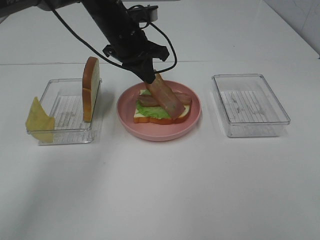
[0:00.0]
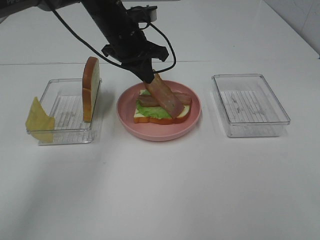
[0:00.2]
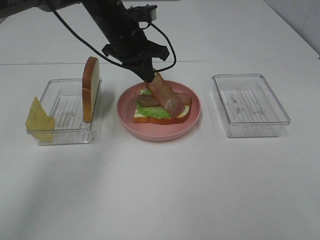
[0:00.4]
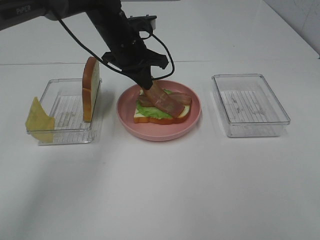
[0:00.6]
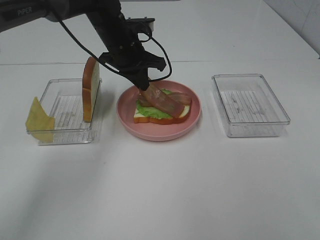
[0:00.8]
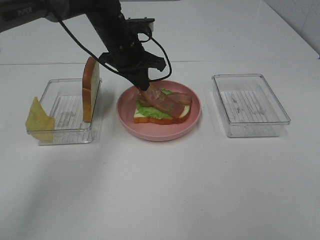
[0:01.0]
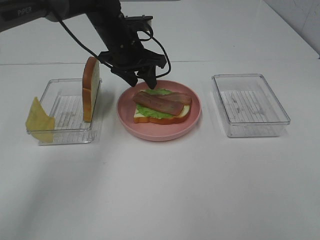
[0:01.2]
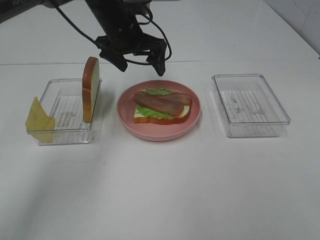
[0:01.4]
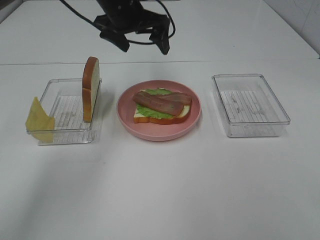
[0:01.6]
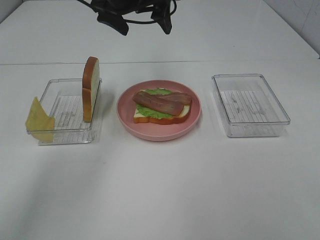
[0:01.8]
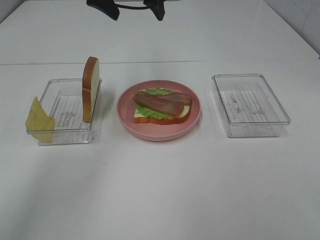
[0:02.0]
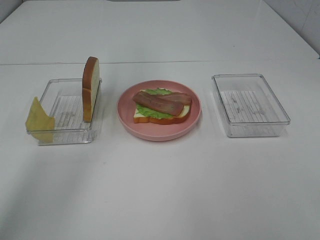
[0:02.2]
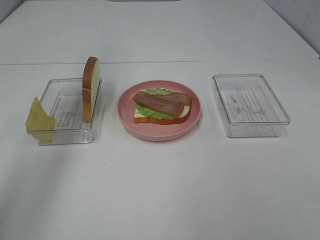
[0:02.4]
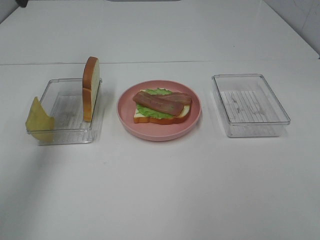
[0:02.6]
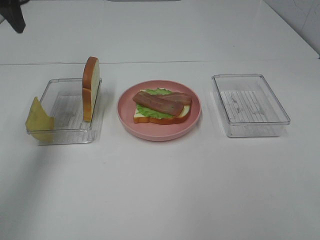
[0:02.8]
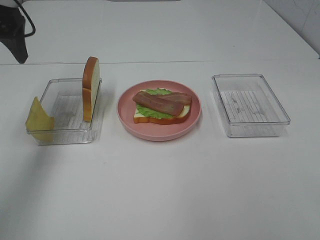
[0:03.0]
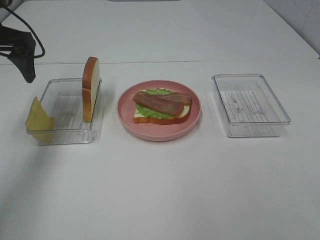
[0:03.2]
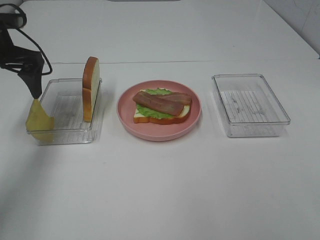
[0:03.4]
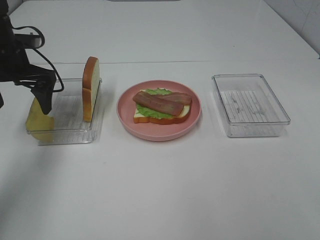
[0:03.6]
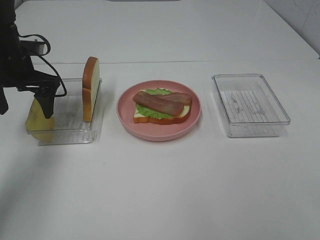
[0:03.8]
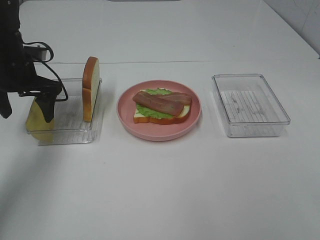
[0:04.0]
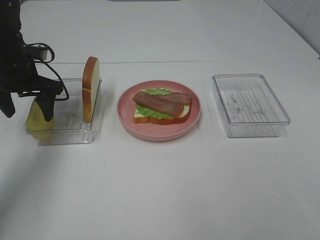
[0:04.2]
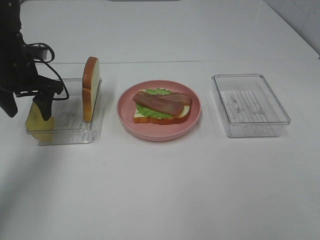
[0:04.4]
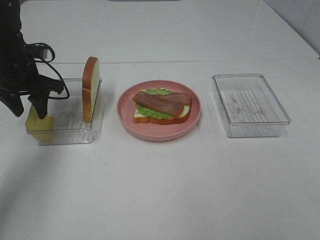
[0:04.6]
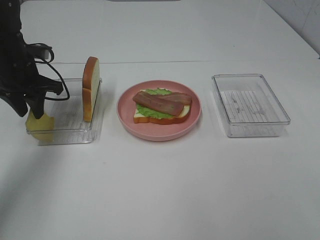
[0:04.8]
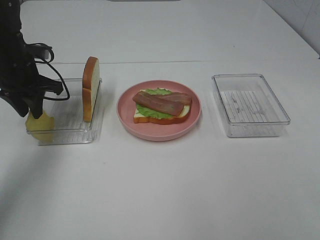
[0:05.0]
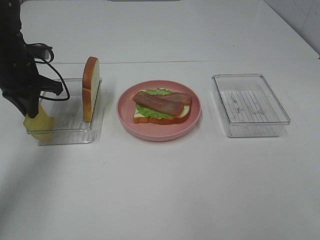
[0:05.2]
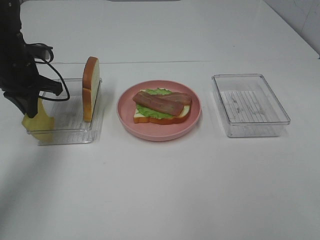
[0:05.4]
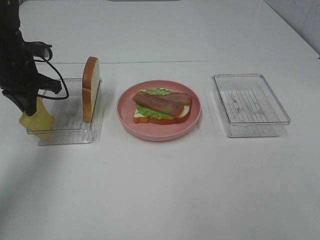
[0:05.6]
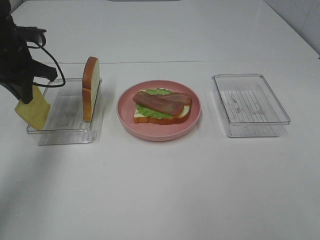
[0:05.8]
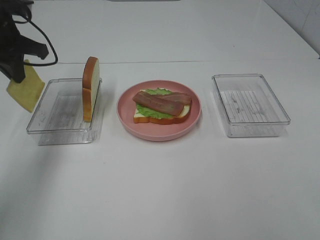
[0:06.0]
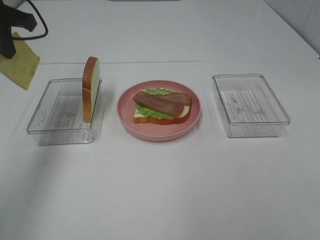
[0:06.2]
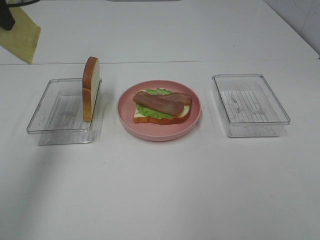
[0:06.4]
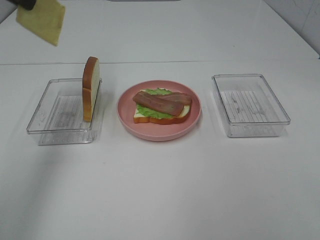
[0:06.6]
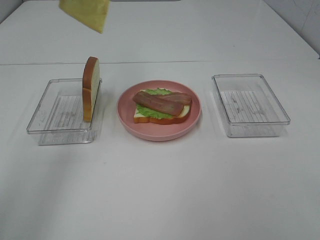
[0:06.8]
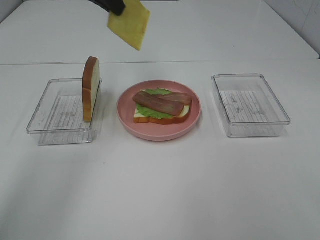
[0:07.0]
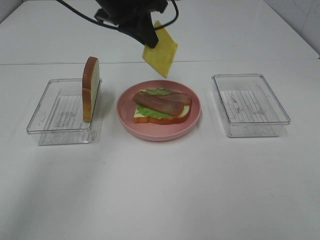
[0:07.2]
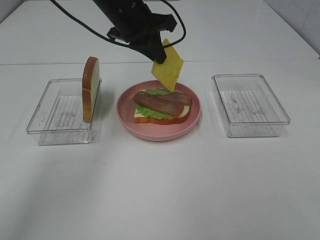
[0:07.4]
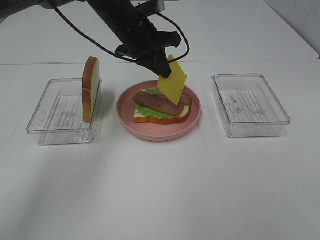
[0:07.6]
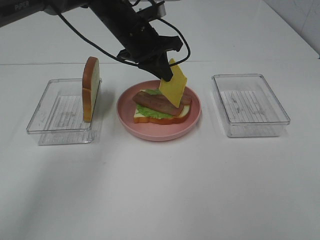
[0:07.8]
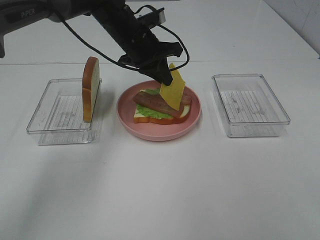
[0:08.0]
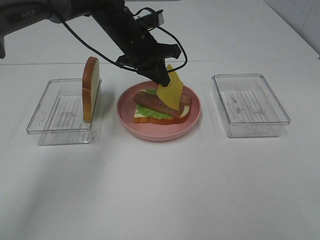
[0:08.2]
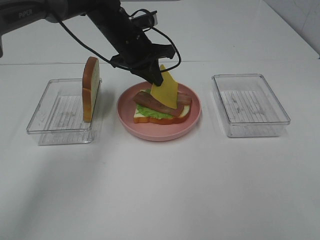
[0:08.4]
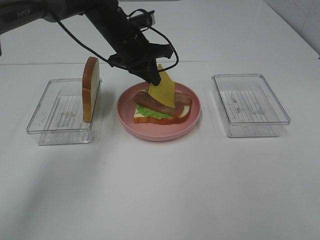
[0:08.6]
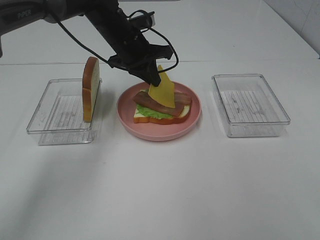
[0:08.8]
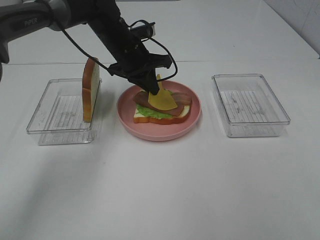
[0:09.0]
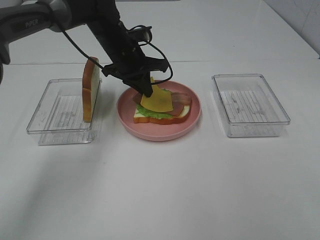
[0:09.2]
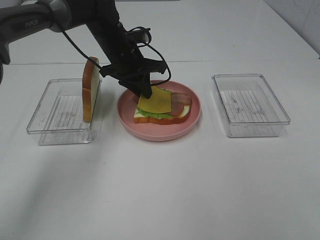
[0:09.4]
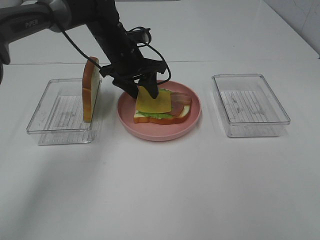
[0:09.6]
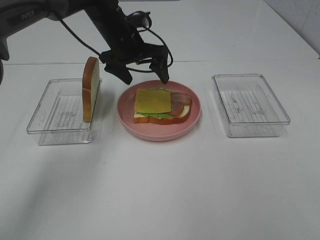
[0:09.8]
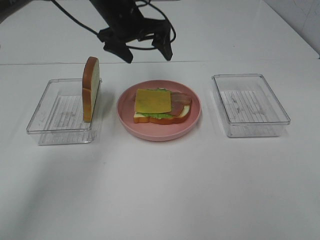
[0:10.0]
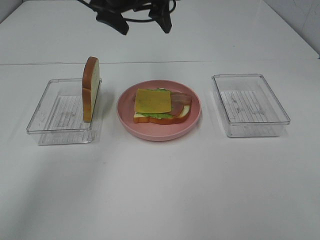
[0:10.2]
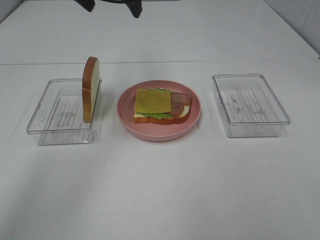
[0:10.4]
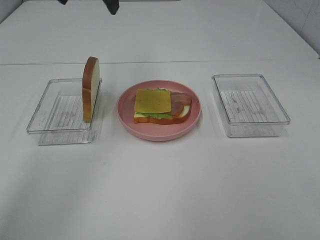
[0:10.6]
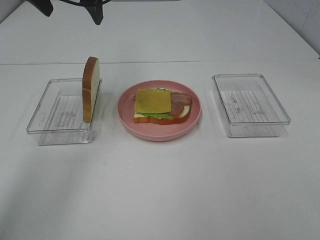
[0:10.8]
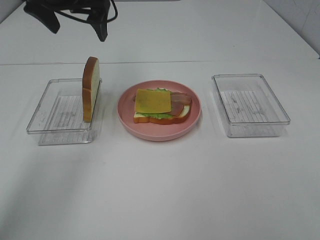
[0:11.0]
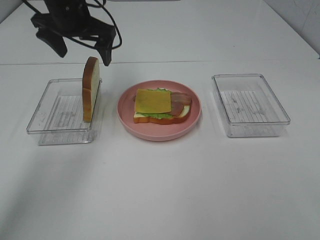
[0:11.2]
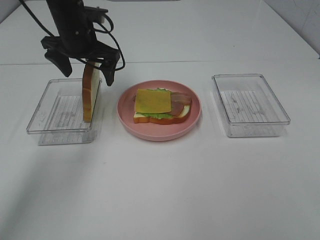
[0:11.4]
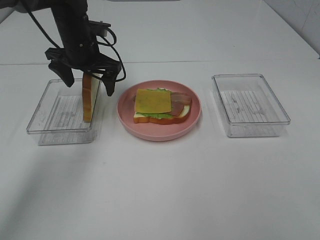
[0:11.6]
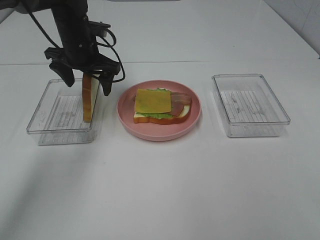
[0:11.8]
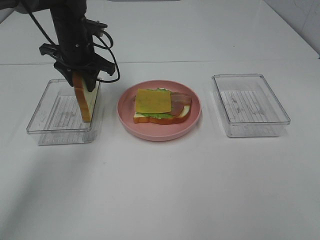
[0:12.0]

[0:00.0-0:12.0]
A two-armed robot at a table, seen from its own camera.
Task of the whole recording: Make sandwiches.
Step, 0:01.4 to 0:05.6: Left hand:grab the cheese slice.
Step, 0:05.8 to 0:09.8: Left hand:place the cheese slice on top of the bacon.
Step, 0:10.0 to 0:12.0: Left hand:grab the bread slice.
0:00.0 to 0:01.6: The left gripper goes approximately 5 cm upward, and opens up.
0:01.6 to 0:03.0: The left gripper shifts approximately 25 cm to the left and backward.
0:03.0 to 0:04.4: The left gripper travels downward by roughly 15 cm.
0:04.4 to 0:06.0: The left gripper travels upward by some 10 cm, and closes its fingers.
0:06.0 to 0:07.6: The left gripper is displaced to the right by roughly 20 cm.
0:07.6 to 0:09.0: The left gripper shifts by roughly 5 cm.
0:09.0 to 0:10.4: The left gripper travels upward by about 20 cm, and opens its fingers.
0:10.4 to 0:12.0: The left gripper goes approximately 15 cm downward, and closes up.

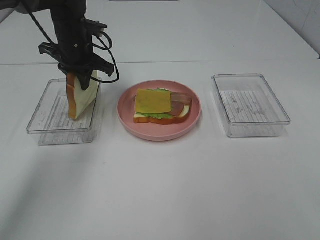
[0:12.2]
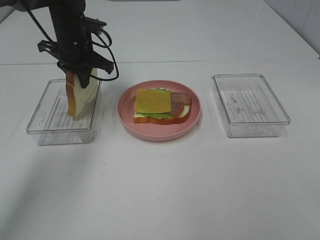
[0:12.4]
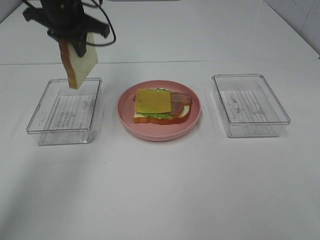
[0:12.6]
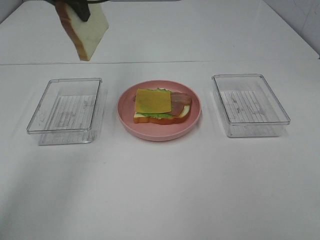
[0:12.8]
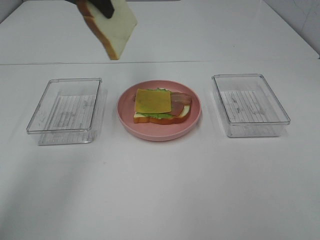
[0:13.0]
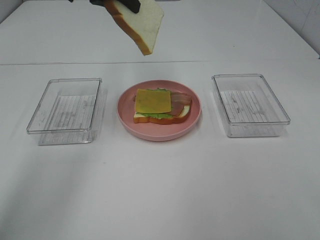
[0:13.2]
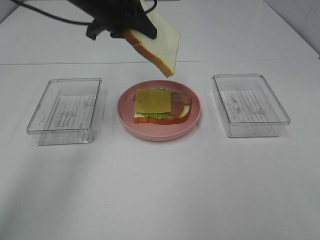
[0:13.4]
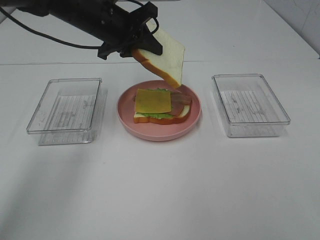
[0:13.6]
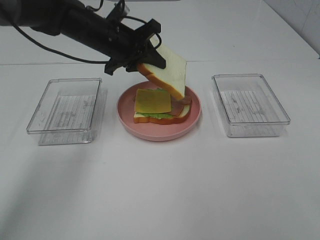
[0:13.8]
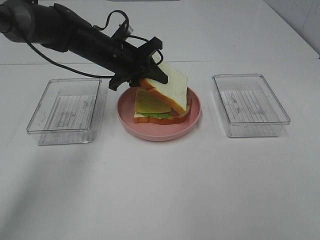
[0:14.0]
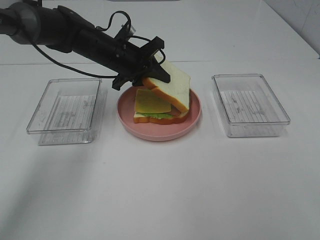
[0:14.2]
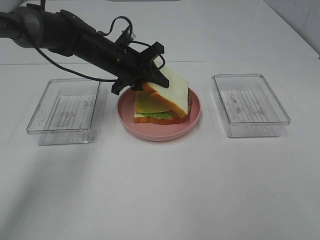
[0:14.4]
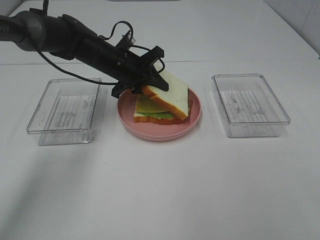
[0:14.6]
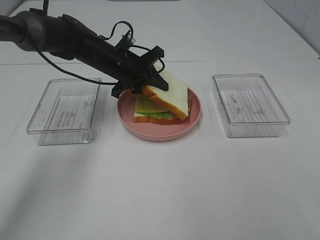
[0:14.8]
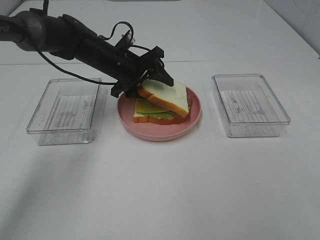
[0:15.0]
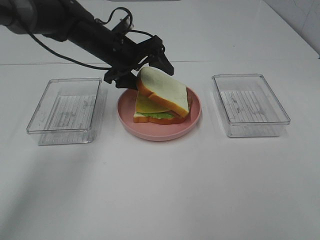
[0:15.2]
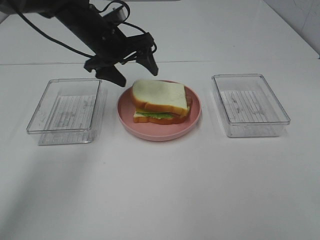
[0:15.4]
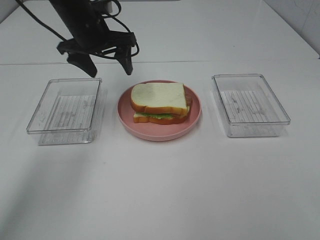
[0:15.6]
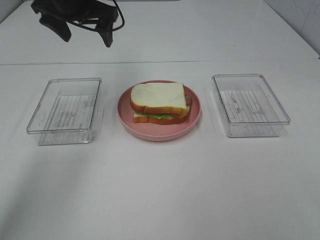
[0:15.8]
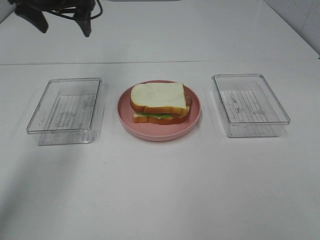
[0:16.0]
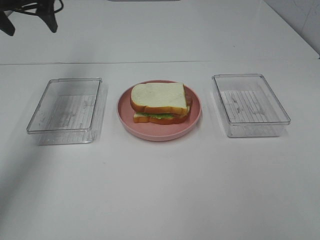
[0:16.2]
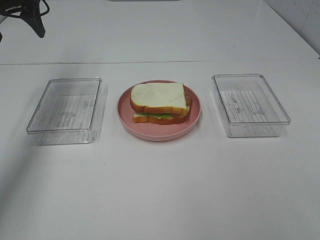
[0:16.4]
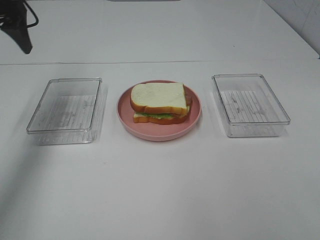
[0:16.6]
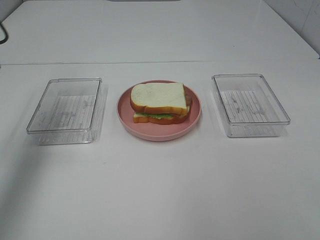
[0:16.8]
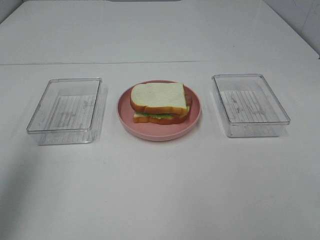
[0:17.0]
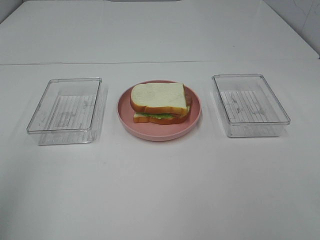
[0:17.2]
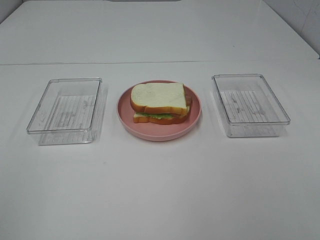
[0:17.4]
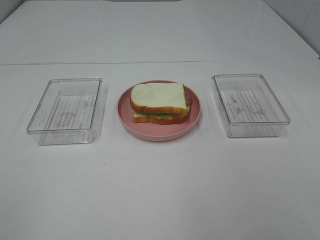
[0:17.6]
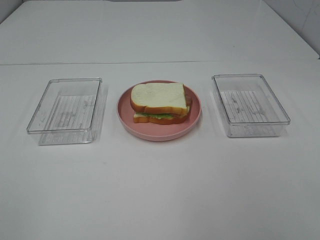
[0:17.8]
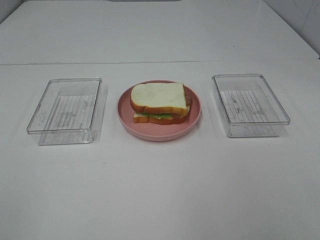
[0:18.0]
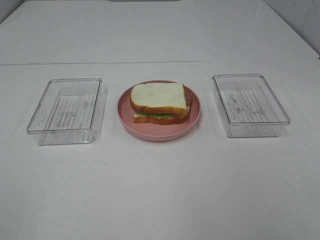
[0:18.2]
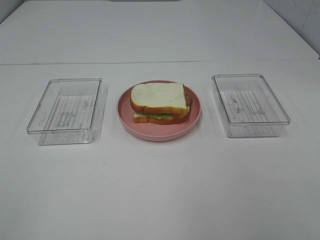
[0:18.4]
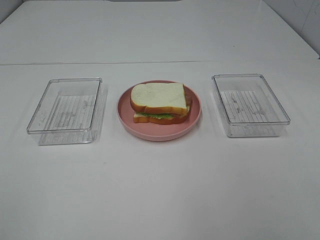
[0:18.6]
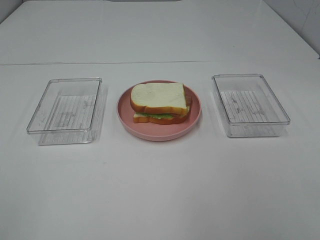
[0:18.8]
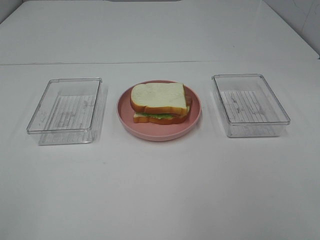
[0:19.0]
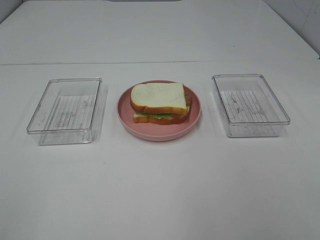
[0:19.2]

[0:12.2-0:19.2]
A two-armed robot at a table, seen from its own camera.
Task of the whole recording: Make sandwiches.
0:12.2 to 0:13.6: The left gripper goes some 5 cm to the right, and reaches approximately 15 cm upward, then returns.
0:13.6 to 0:15.0: The left gripper moves downward, about 10 cm, and opens up.
0:15.0 to 0:16.4: The left gripper shifts some 25 cm to the left and upward.
0:16.4 to 0:17.8: The left gripper shifts some 50 cm backward.
0:17.8 to 0:19.2: Both grippers stay about where they are.
